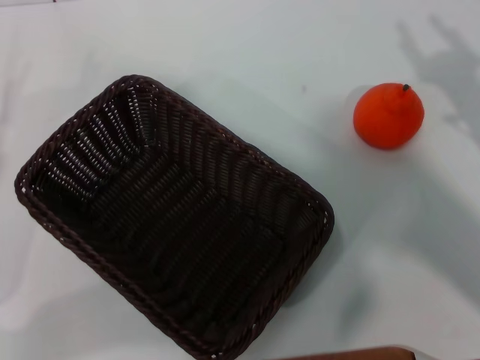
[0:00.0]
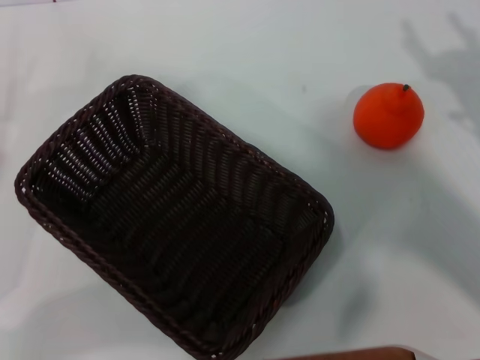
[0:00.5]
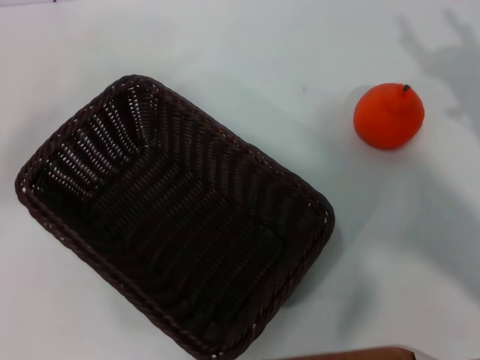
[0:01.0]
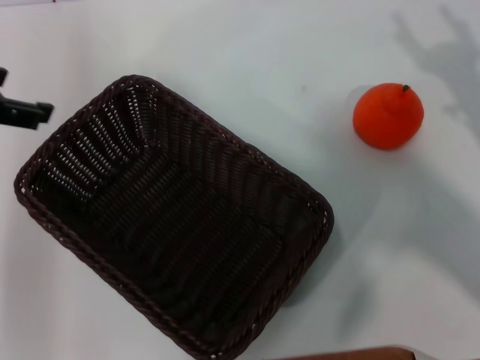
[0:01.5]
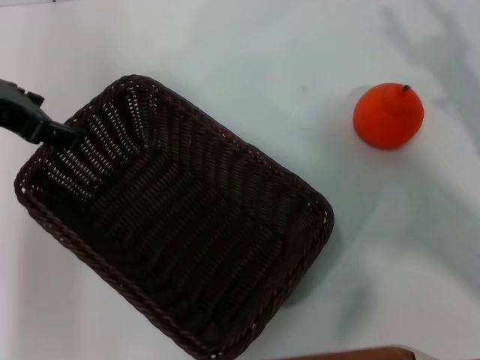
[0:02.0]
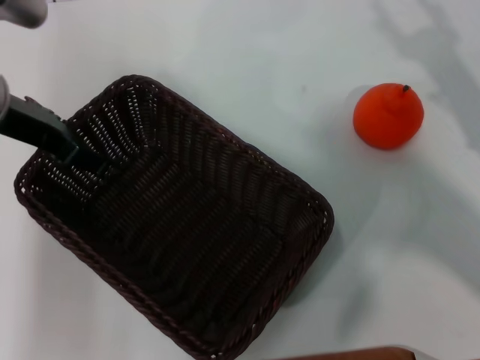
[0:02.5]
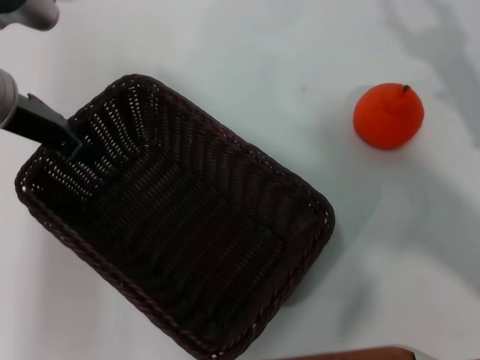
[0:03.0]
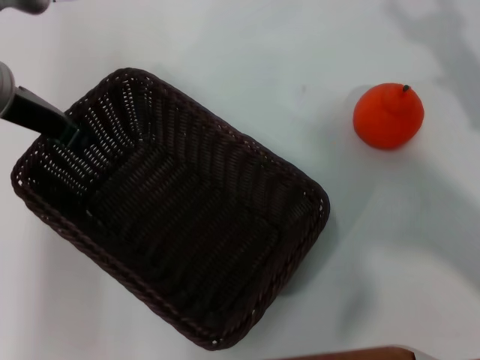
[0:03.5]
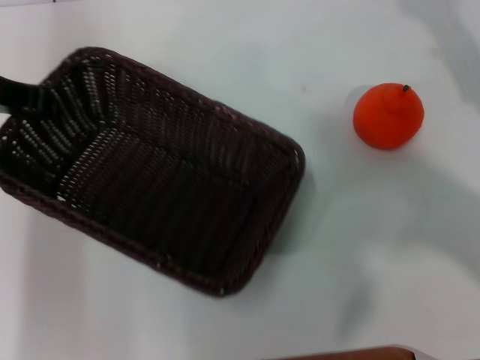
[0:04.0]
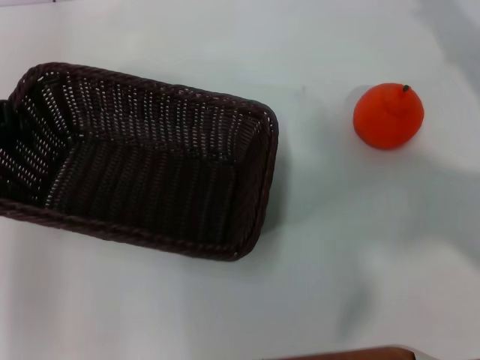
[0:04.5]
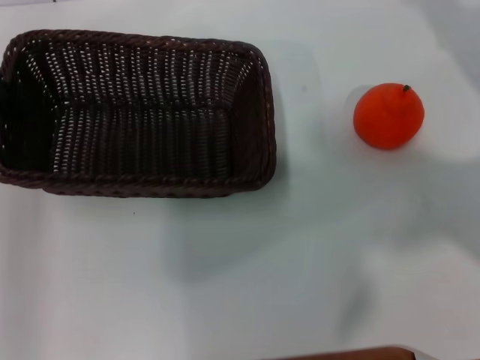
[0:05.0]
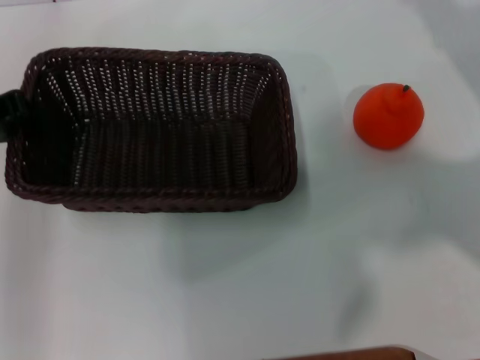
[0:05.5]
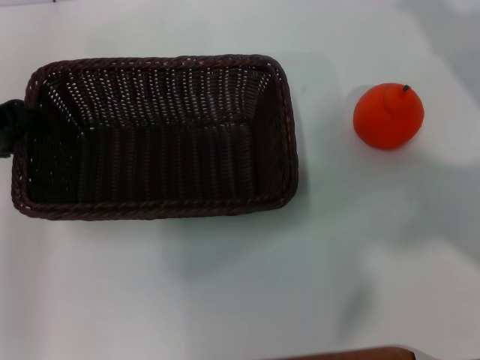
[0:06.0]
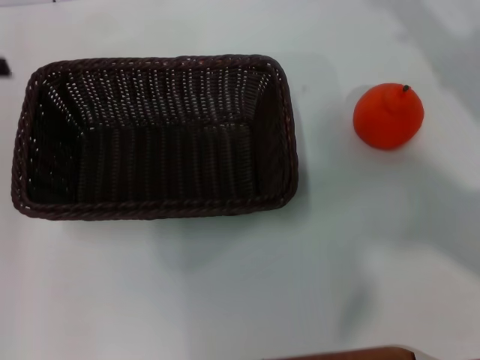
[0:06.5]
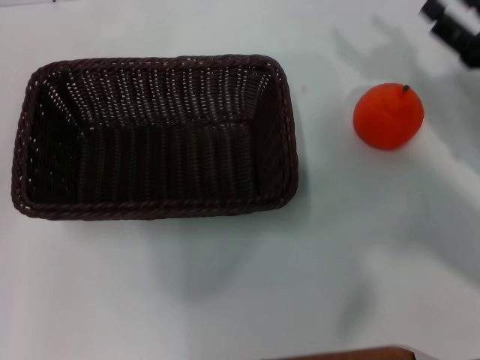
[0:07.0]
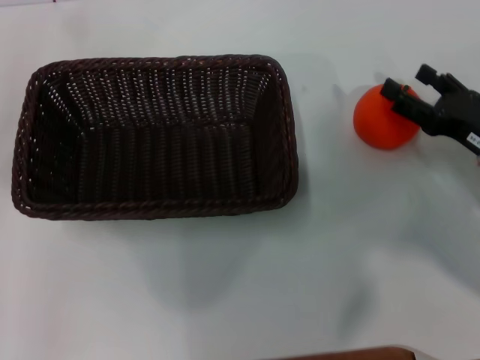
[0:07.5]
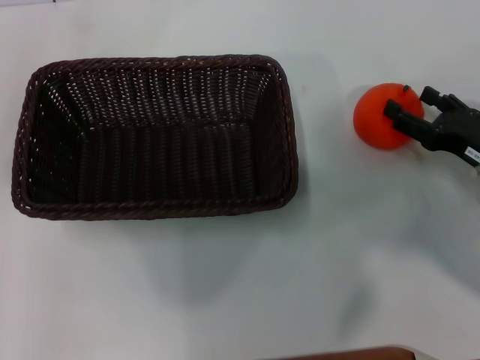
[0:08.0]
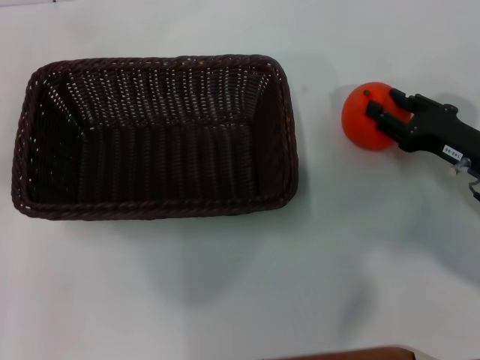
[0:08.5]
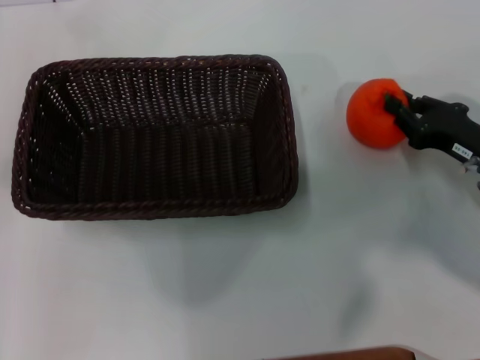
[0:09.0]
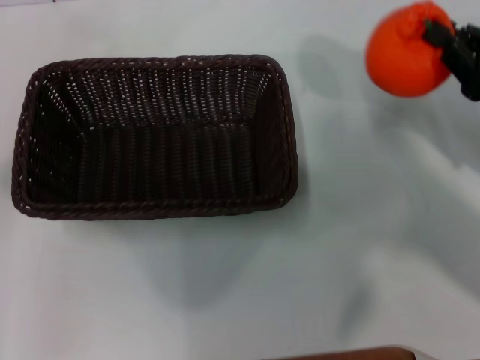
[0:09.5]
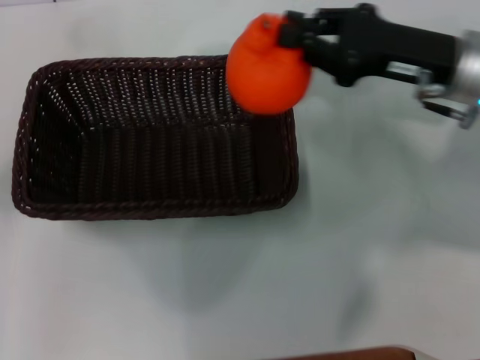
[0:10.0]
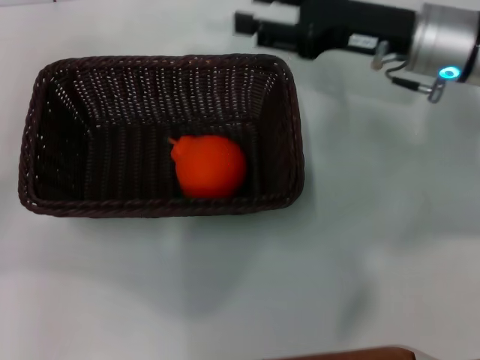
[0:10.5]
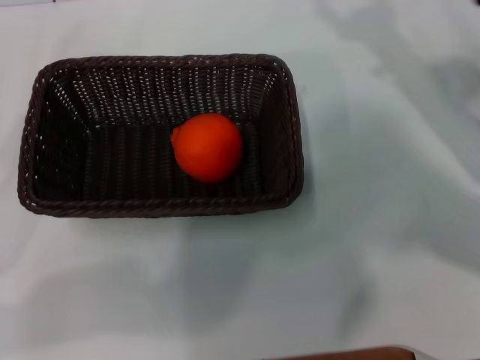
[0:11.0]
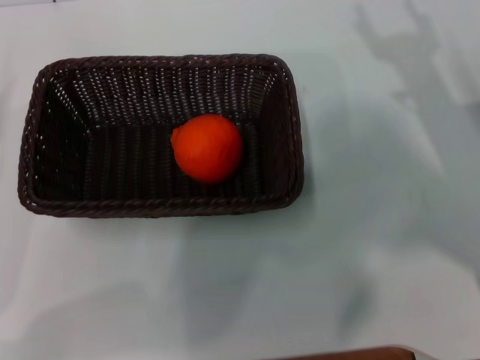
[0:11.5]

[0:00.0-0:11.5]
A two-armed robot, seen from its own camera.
Task of the whole recording: the left gripper pick up the black basket and place it horizontally in the middle of the table, the right gripper pick up the orange and place it into the black basket.
Step, 0:00.0 to 0:04.0: Pick up the dark basket with the left gripper.
Step, 0:04.5 to 0:06.0: Place the dark basket in the center of view with the left gripper.
Step, 0:06.5 to 0:09.0: Pick up the orange with the right gripper.
Step, 0:09.5 to 0:10.0: Place the orange into the dark basket with the right gripper.
0:00.0 to 0:02.0: The left gripper goes roughly 25 cm upward, to the right and forward.
0:02.0 to 0:04.0: The right gripper moves some 5 cm, while the left gripper closes.
0:04.0 to 0:06.0: The left gripper moves about 5 cm. The right gripper goes roughly 5 cm forward.
0:06.0 to 0:07.5: The left gripper is displaced to the left by about 10 cm, and opens up. The right gripper travels downward and backward by about 15 cm.
0:07.5 to 0:09.5: The right gripper goes approximately 5 cm upward, and closes.
0:09.5 to 0:11.5: The right gripper reaches about 10 cm to the left, then returns, and opens its fingers. Meanwhile the left gripper is displaced downward and backward by some 20 cm.
